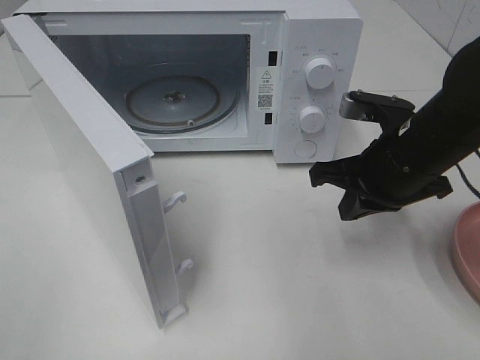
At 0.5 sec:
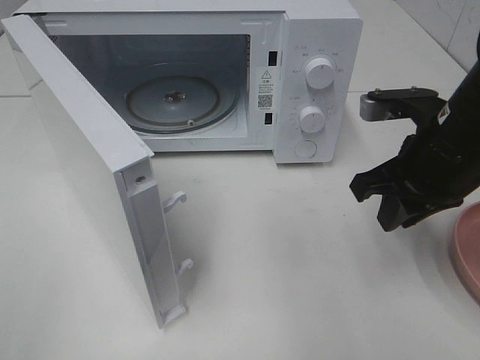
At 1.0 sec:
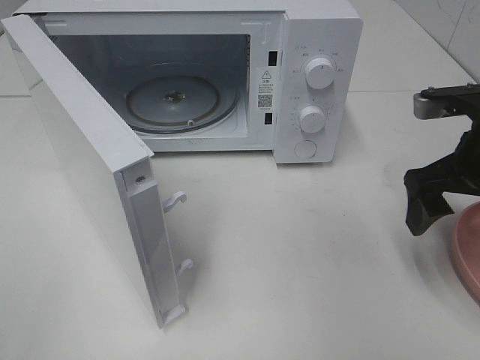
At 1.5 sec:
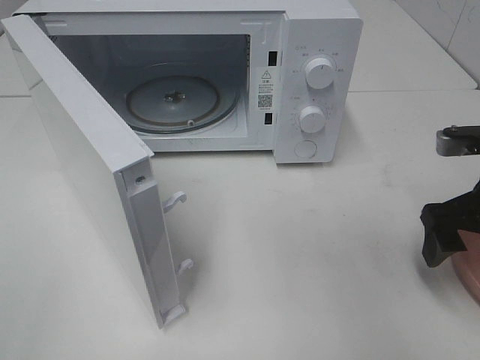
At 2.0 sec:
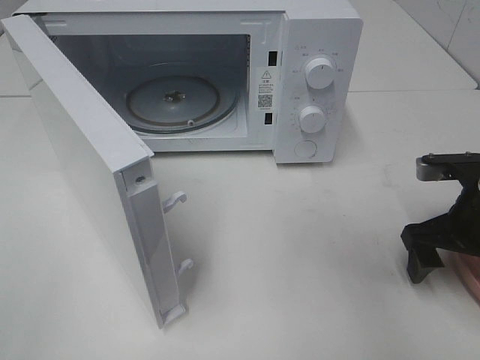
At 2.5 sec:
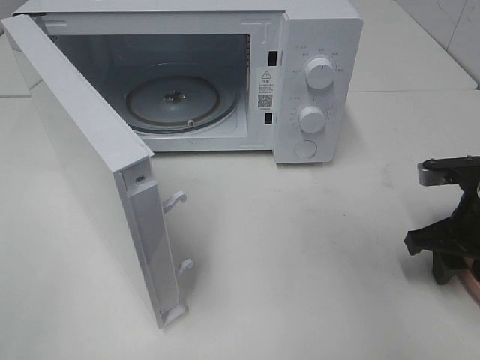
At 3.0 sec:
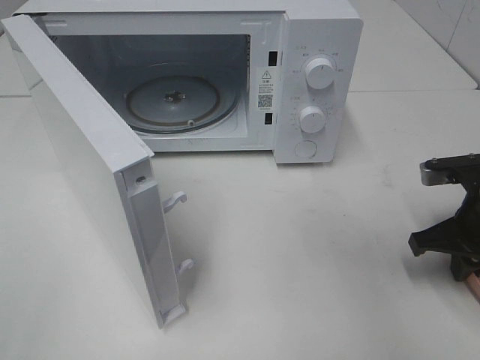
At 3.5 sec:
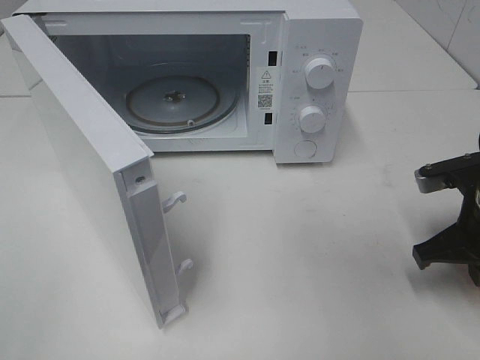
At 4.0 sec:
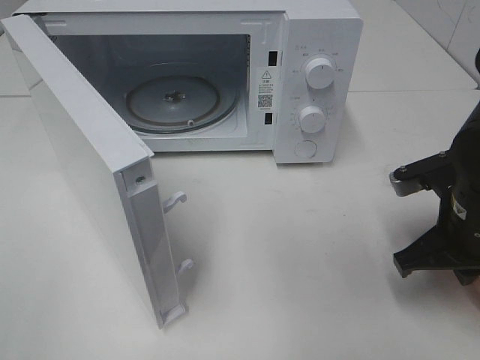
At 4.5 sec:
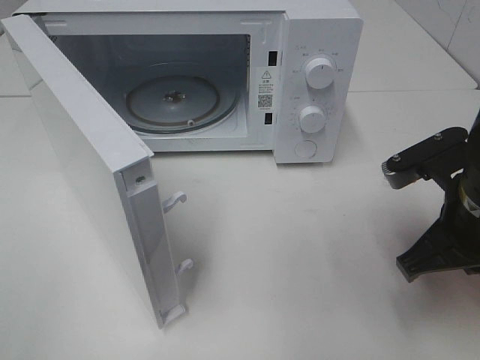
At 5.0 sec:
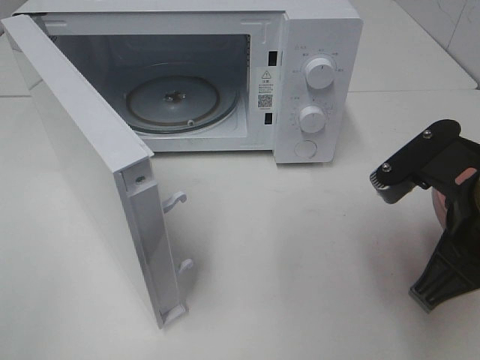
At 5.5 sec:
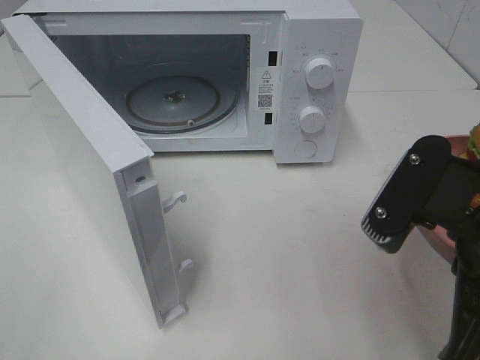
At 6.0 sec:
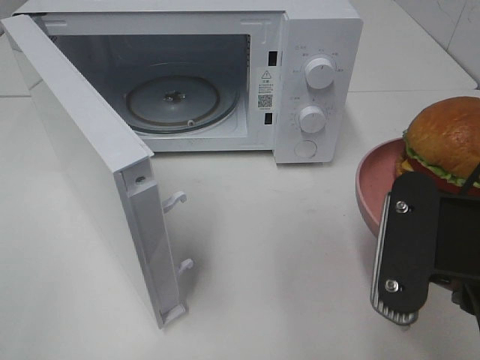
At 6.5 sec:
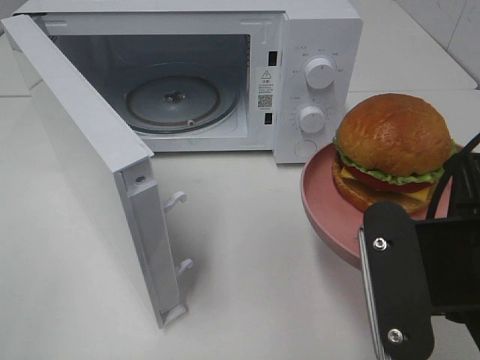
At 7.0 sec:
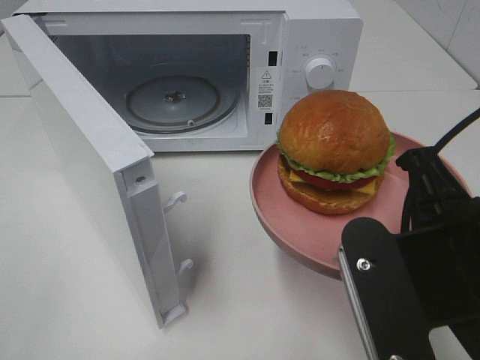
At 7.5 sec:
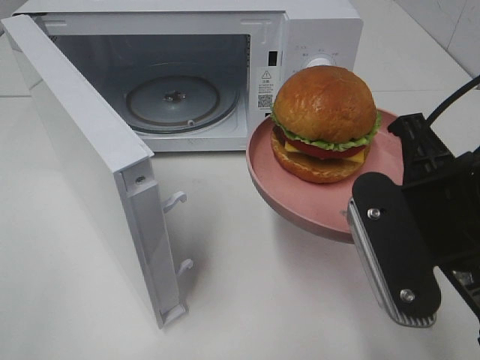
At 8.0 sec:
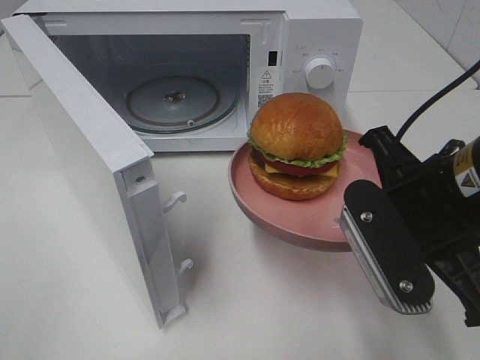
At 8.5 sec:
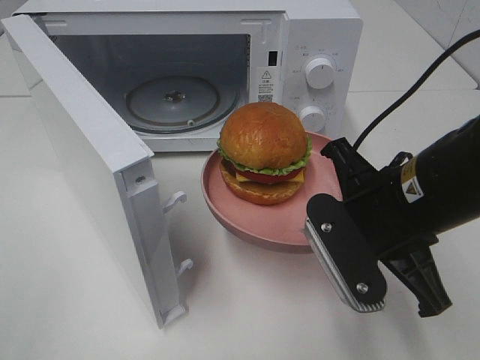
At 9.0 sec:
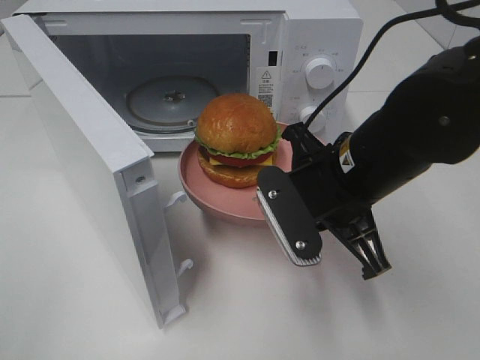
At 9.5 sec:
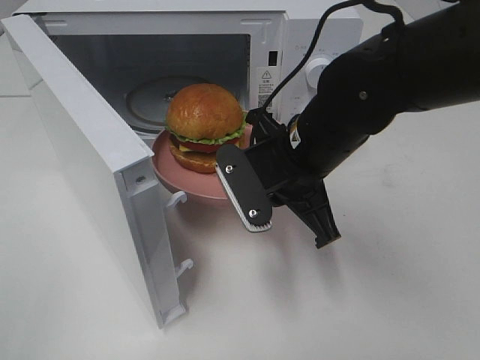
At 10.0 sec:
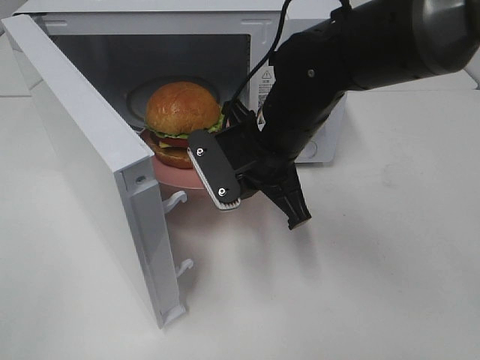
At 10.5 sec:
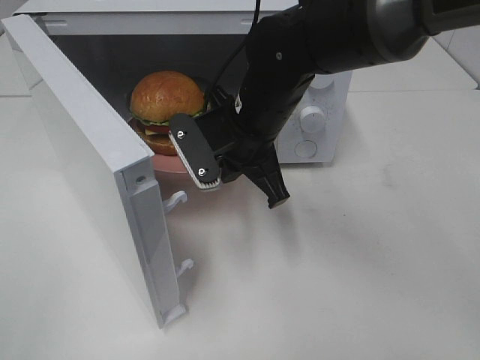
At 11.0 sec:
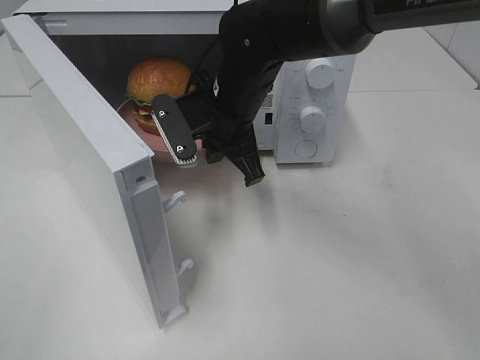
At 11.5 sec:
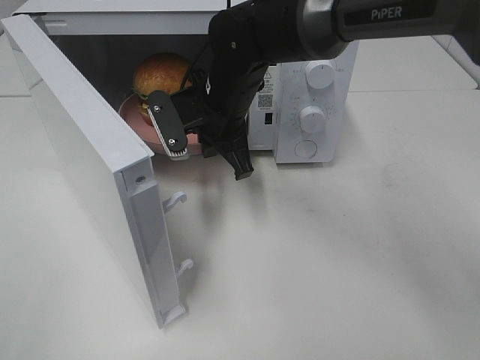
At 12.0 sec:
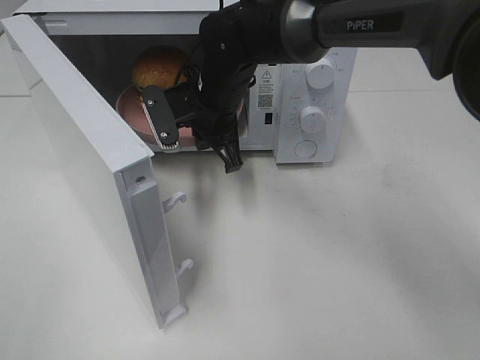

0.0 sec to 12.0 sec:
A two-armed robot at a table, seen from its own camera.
Task of the whole recording: Heat the burger.
Step, 0.0 sec to 3.0 sec: Right hand: grab the plate with the hamburger.
0.0 sec to 2.0 sec: The right gripper moves to the right and downward, some 10 cm, and opens up.
2.0 sec to 4.0 sec: The right gripper shifts by roughly 5 cm, and closes up.
4.0 sec to 6.0 sec: The right gripper travels backward, upward and to the left by roughly 20 cm.
6.0 sec to 8.0 sec: The right gripper shifts approximately 10 cm forward.
8.0 sec to 10.0 sec: The right gripper moves forward and to the left, about 15 cm.
10.0 sec to 12.0 sec: The right gripper travels forward and to the left by some 10 cm.

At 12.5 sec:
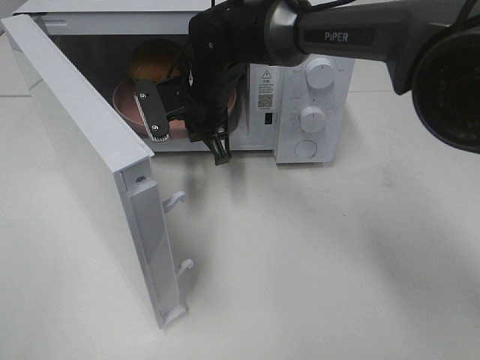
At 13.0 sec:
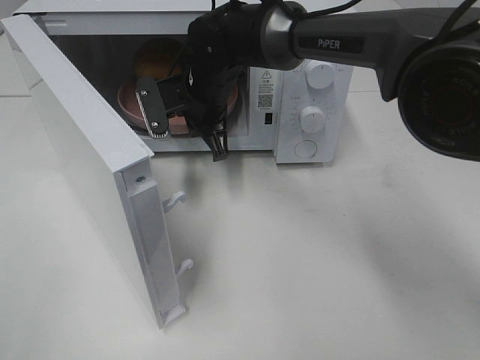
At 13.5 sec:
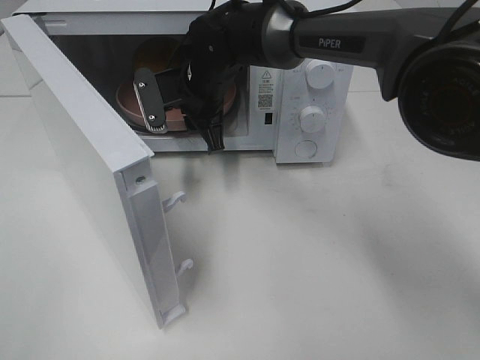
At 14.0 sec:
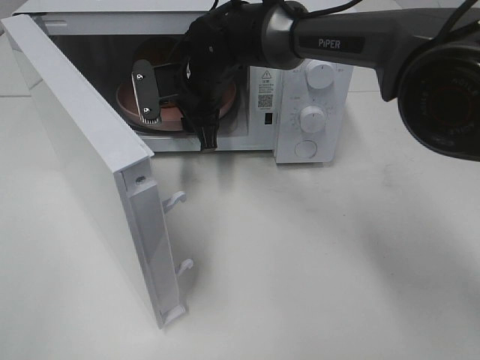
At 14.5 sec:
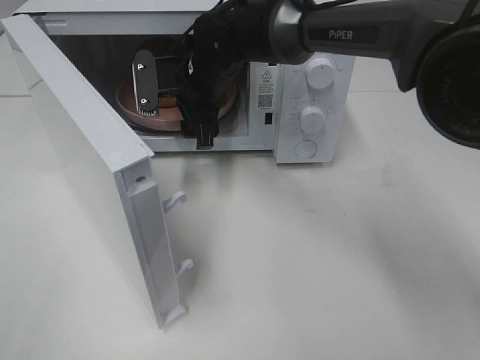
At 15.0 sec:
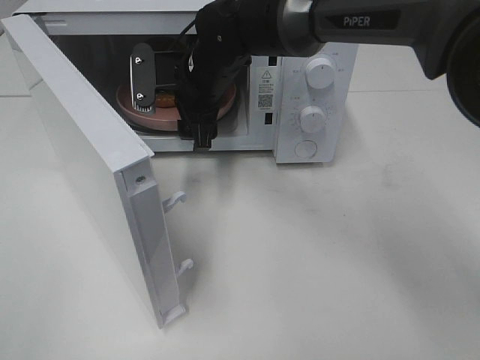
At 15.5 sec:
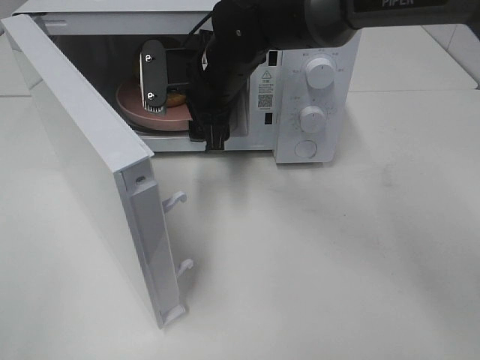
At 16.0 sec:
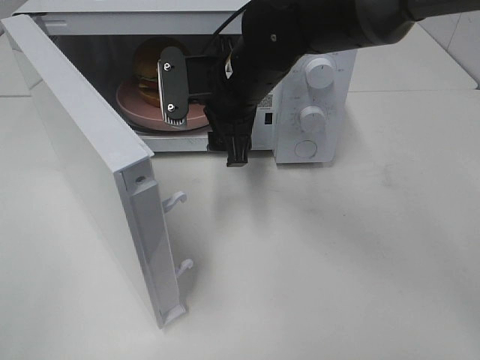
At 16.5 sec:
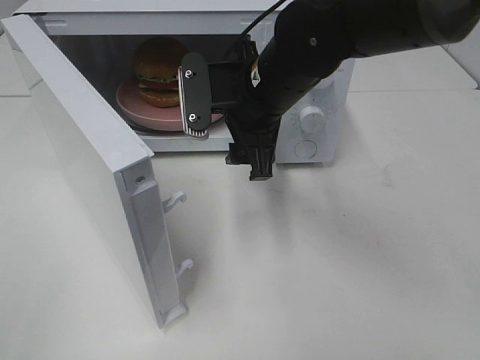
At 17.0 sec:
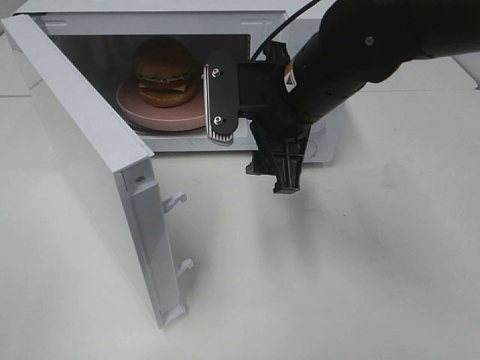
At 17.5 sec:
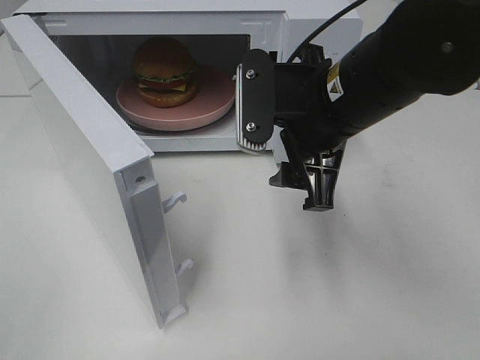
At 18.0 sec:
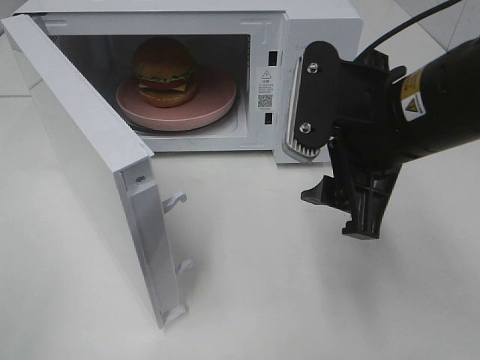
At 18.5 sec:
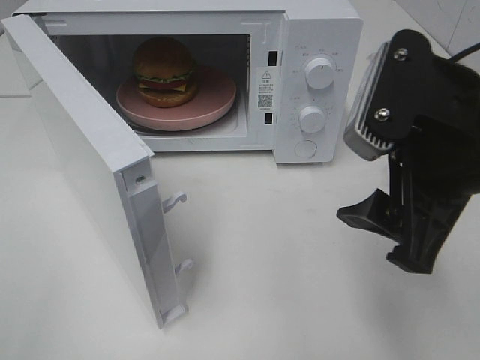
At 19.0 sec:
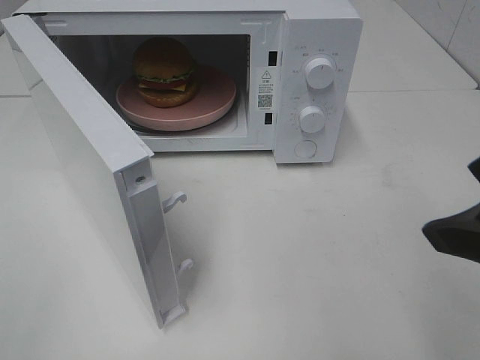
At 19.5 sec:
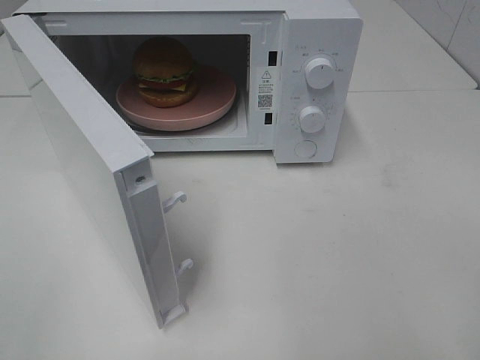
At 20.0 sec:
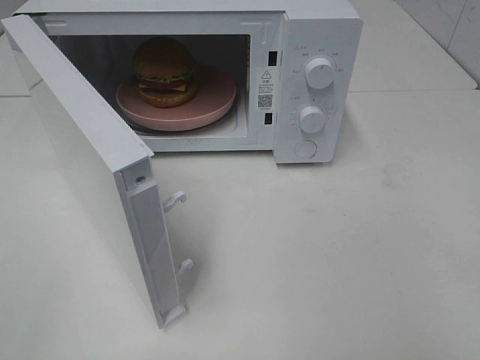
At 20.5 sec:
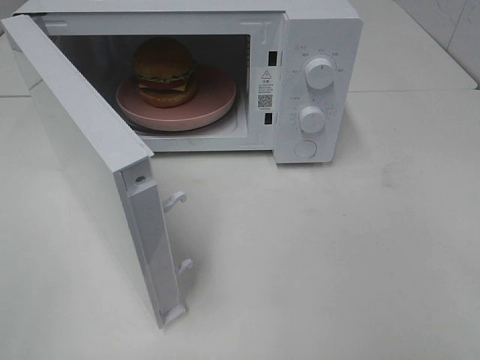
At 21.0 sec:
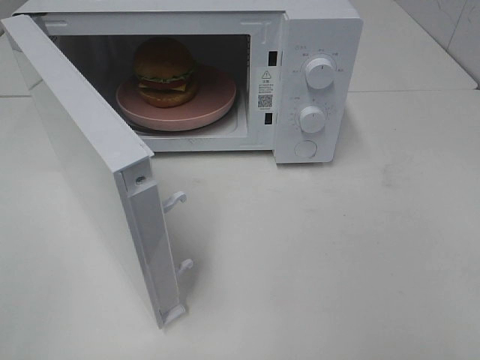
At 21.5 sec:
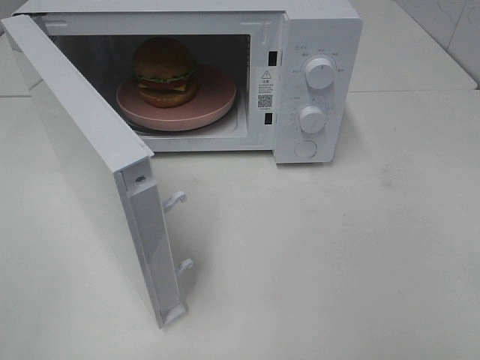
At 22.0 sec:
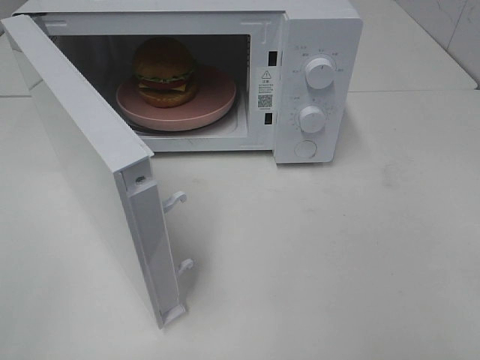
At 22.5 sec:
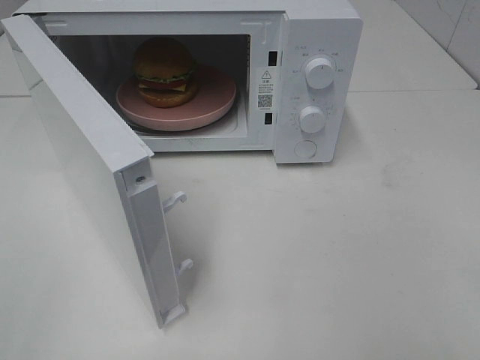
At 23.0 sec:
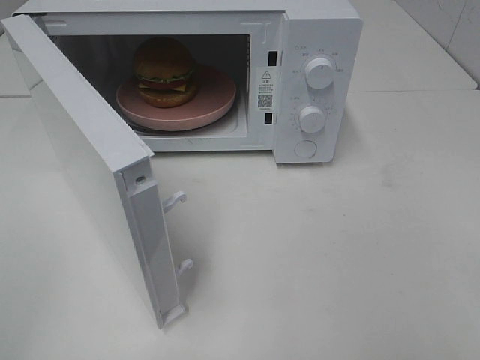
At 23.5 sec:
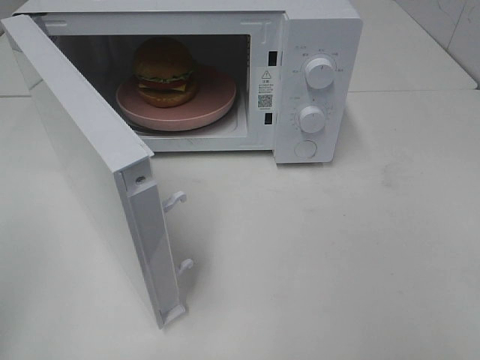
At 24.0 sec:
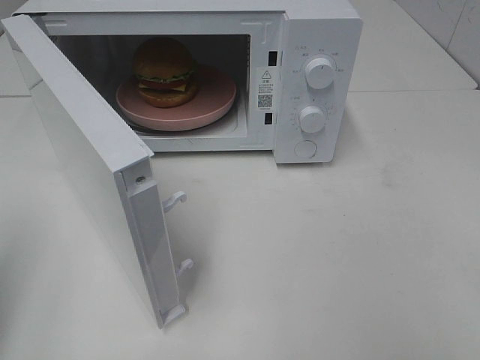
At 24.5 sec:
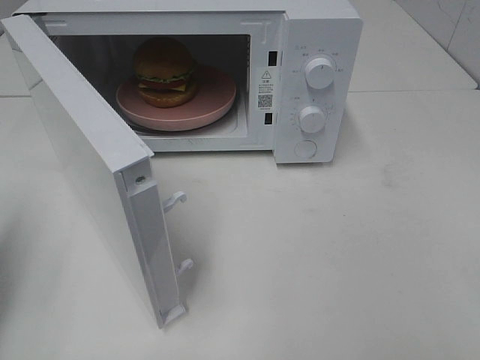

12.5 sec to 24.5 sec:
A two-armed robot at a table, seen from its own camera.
Task of the whole recording: Heat the burger.
12.5 sec to 14.5 sec: The right gripper opens.
14.5 sec to 16.5 sec: The right gripper is displaced backward and to the right by about 15 cm.
16.5 sec to 18.5 sec: The right gripper shifts approximately 20 cm backward and to the right.
18.5 sec to 20.5 sec: The right gripper goes about 20 cm backward and to the right.
22.5 sec to 24.5 sec: The left gripper moves forward, some 20 cm, and closes.

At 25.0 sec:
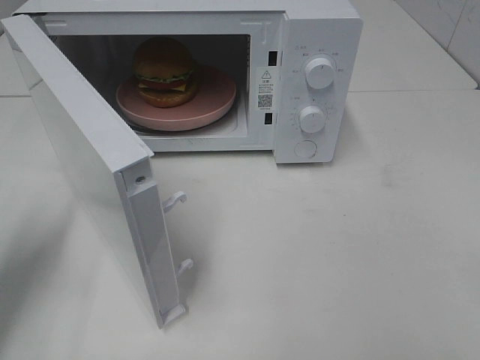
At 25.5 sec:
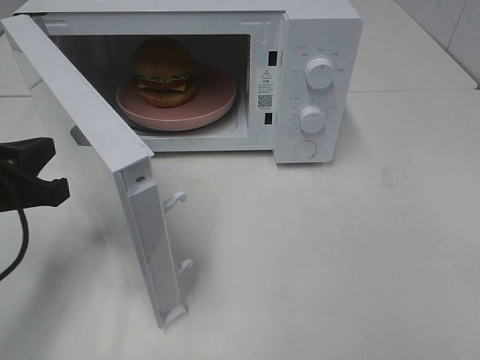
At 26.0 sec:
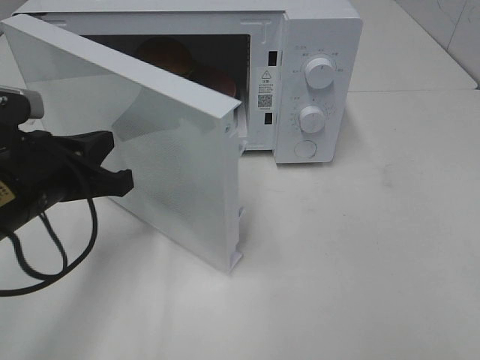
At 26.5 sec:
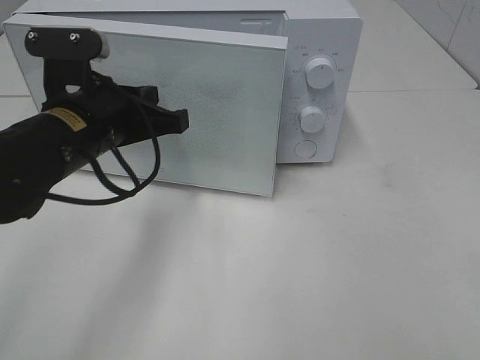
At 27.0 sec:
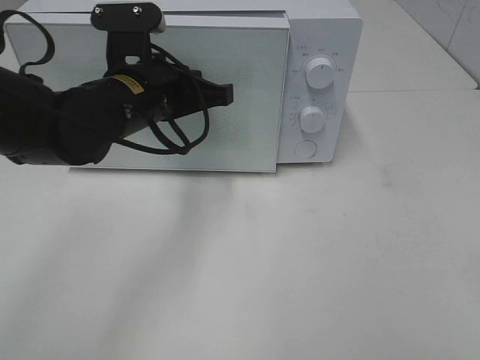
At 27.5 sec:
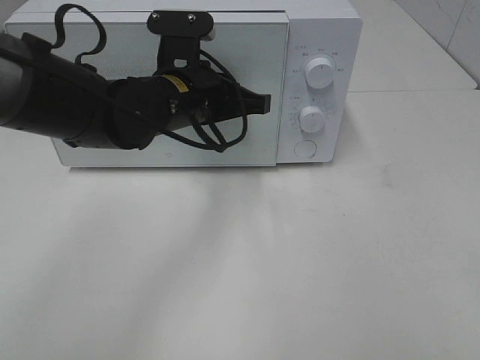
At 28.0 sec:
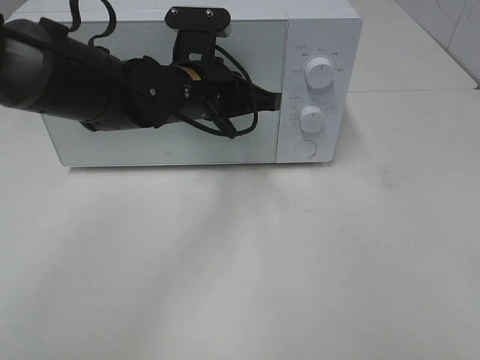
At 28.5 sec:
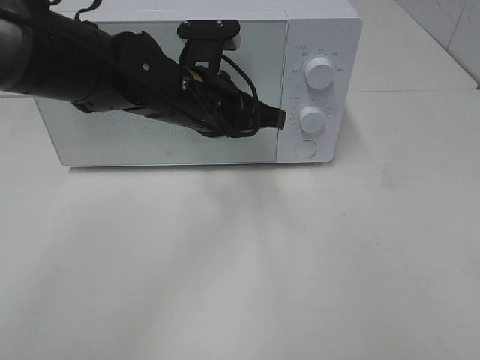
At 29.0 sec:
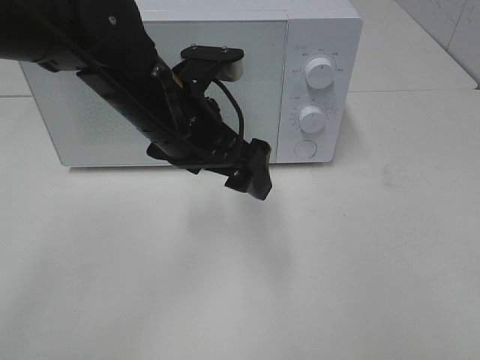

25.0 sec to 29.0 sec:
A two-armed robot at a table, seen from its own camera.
Task of the whole recording: Heat the burger.
Step, 25.0 sec to 28.0 sec: Left hand: close the microwave door.
25.0 sec to 27.0 sec: The left gripper shifts about 25 cm to the right and forward.
27.0 sec to 29.0 sec: The left gripper moves about 5 cm, and opens its fingers.
